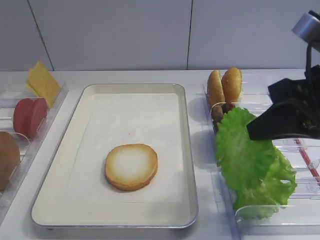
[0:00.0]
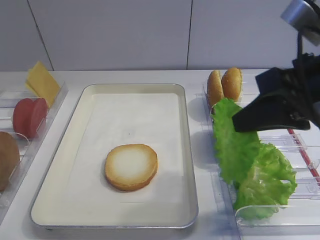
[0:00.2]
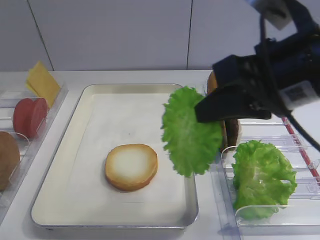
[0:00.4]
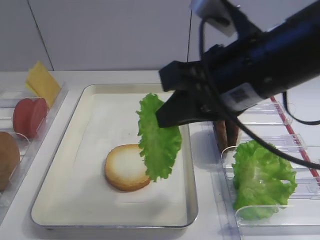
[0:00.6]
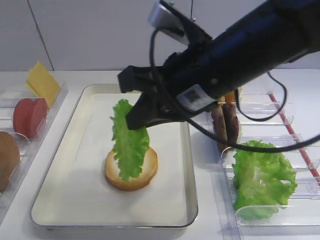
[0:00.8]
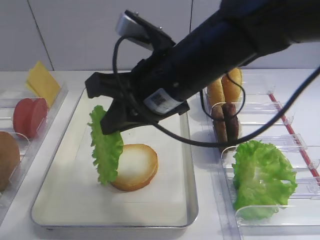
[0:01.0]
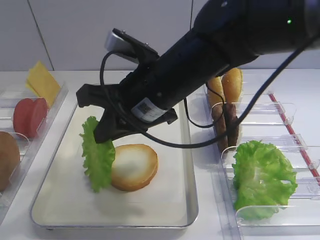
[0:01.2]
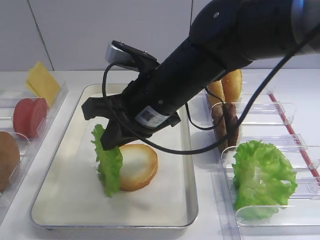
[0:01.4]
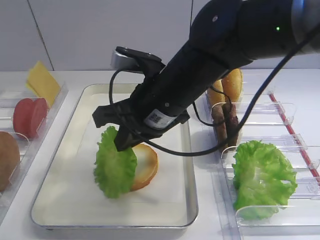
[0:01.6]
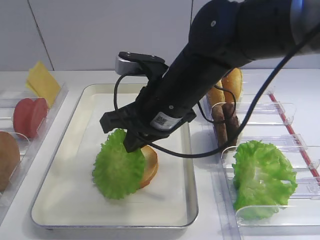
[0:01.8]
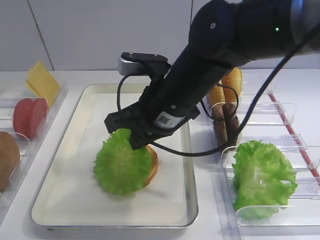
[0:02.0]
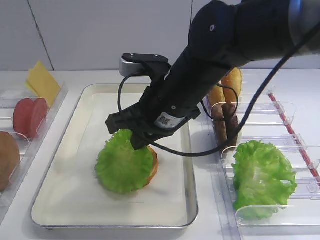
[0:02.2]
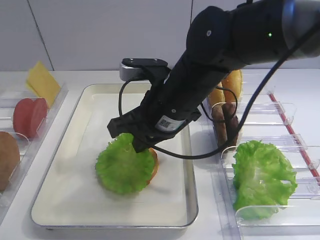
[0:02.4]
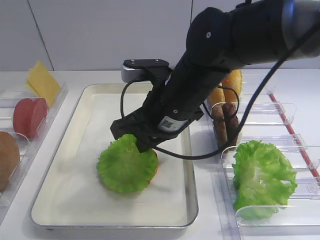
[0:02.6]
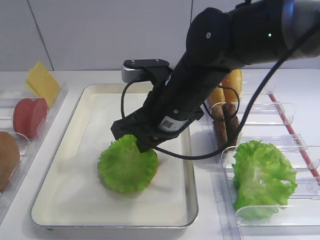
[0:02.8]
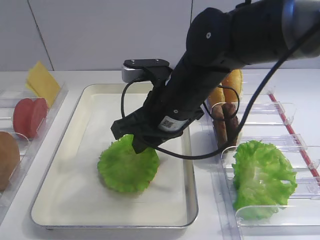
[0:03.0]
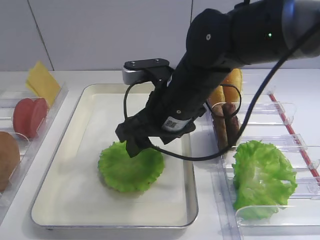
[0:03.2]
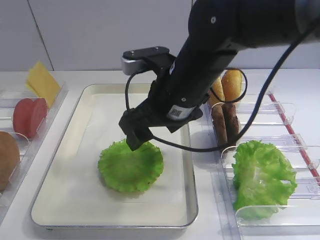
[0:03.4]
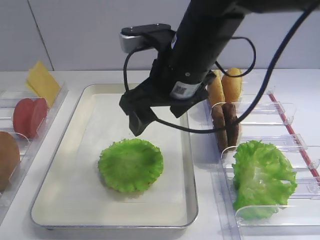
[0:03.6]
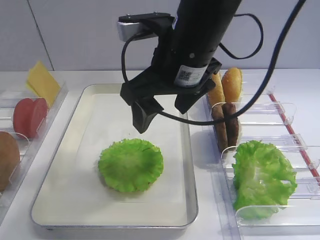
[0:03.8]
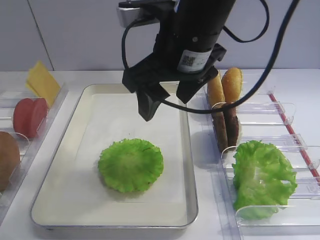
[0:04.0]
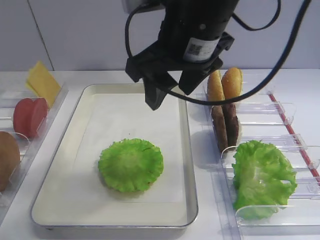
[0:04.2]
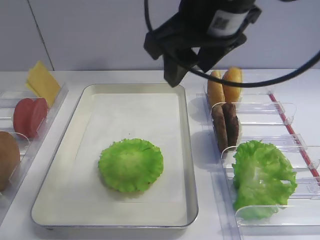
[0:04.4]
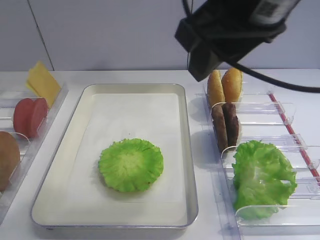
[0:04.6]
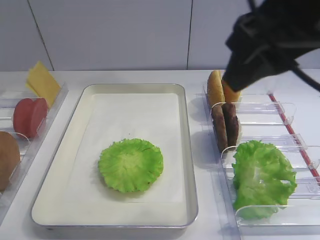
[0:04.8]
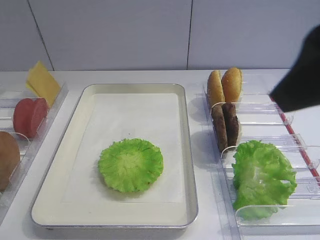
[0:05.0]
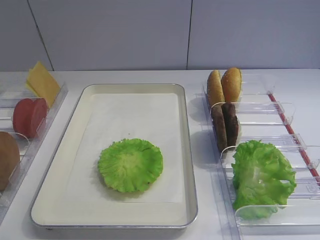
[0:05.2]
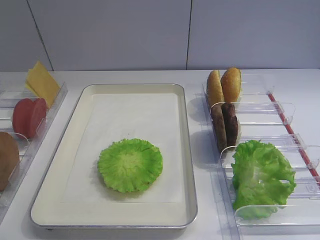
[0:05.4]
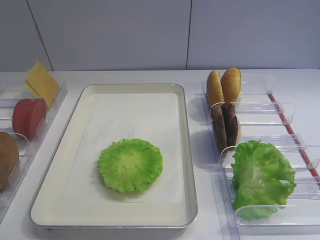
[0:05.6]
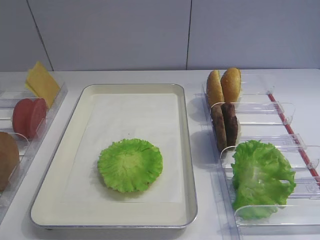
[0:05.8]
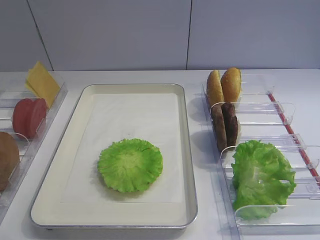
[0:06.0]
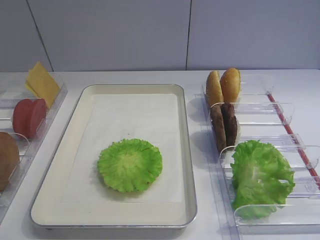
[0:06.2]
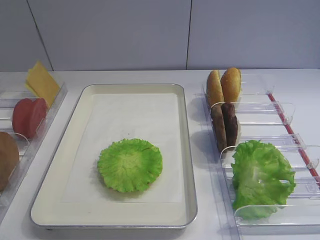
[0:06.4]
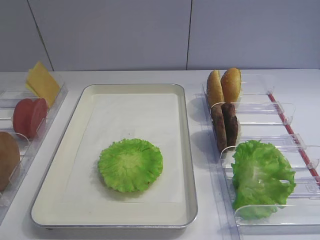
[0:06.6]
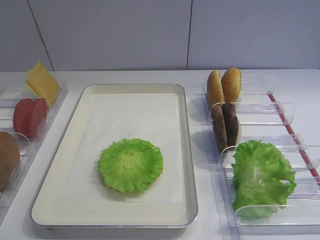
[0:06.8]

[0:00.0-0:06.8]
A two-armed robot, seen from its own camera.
Step, 0.0 to 3.4 s: Place the lettuce leaf on the bread slice with the right gripper.
0.0 to 1.4 s: The right gripper is displaced to the left by approximately 20 cm.
1.4 to 2.8 s: The grippers move only a little.
2.8 to 4.0 s: The right gripper is displaced upward by about 10 cm, and opens its fingers.
4.0 to 5.4 s: The right gripper goes about 30 cm backward and to the right.

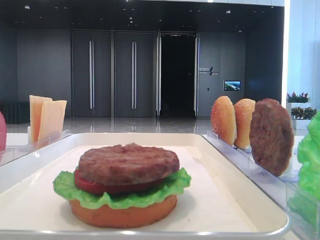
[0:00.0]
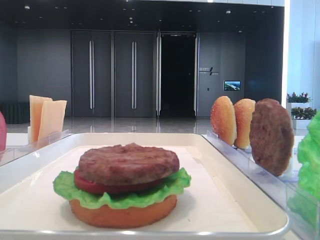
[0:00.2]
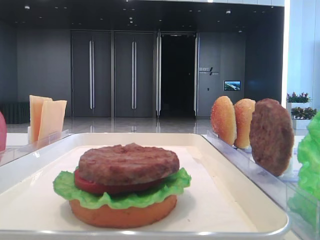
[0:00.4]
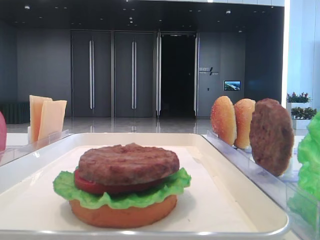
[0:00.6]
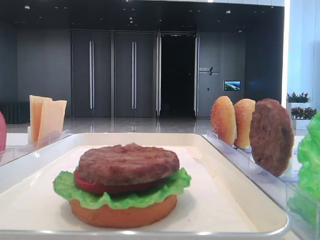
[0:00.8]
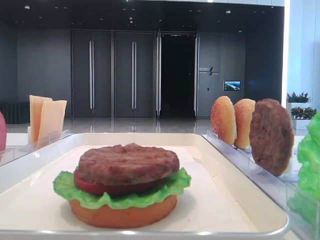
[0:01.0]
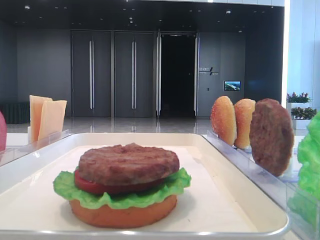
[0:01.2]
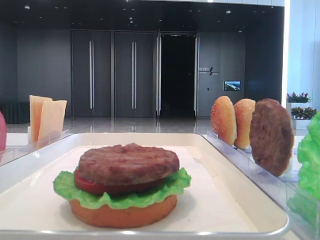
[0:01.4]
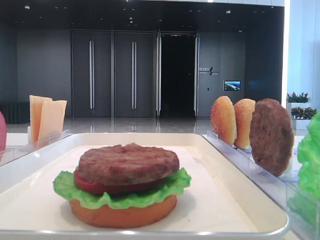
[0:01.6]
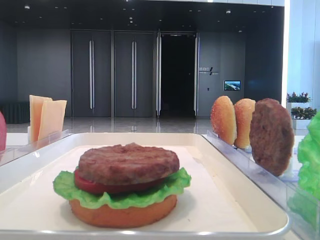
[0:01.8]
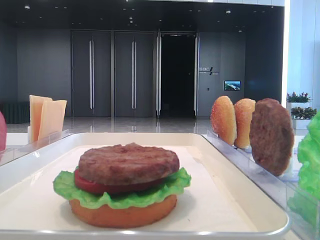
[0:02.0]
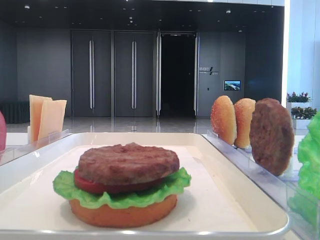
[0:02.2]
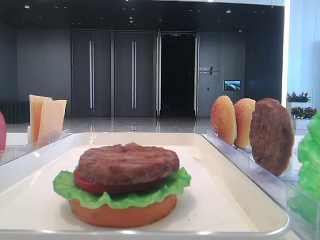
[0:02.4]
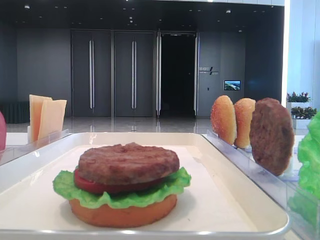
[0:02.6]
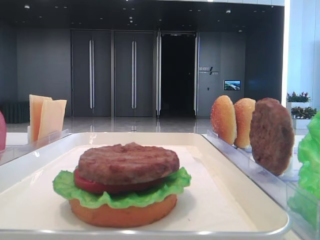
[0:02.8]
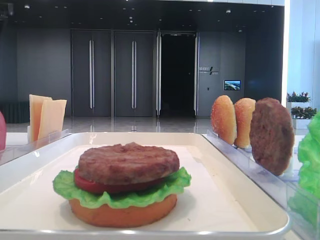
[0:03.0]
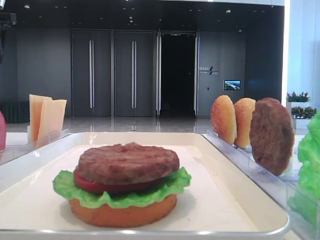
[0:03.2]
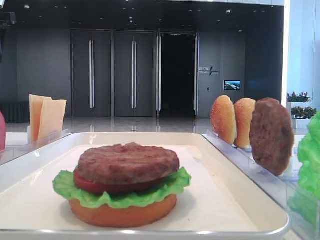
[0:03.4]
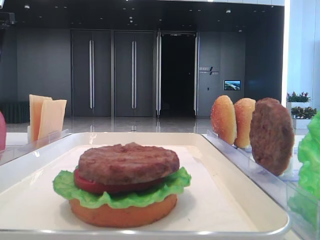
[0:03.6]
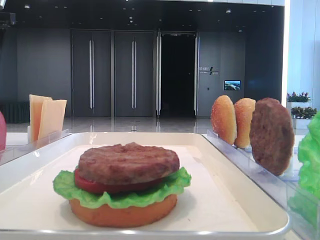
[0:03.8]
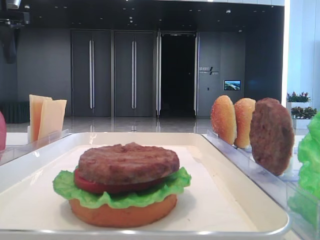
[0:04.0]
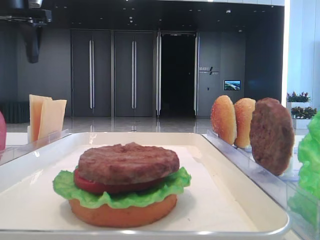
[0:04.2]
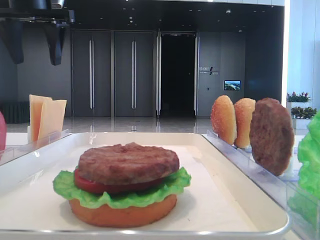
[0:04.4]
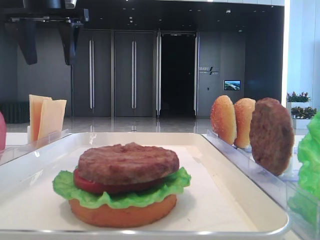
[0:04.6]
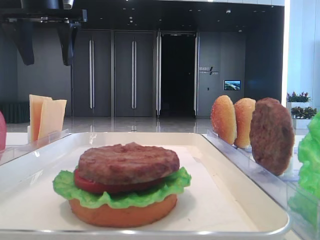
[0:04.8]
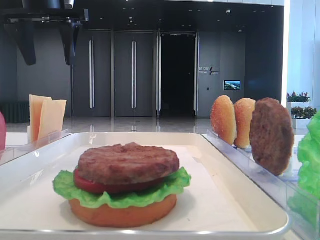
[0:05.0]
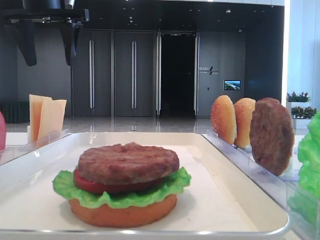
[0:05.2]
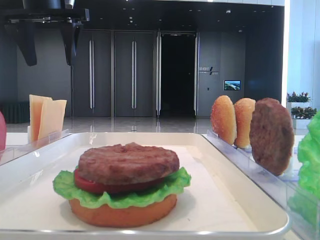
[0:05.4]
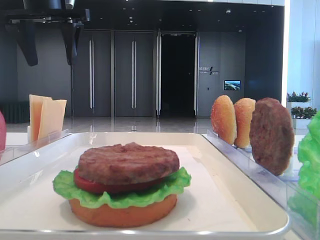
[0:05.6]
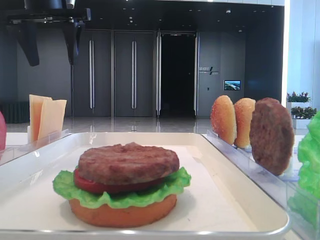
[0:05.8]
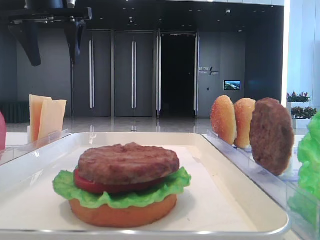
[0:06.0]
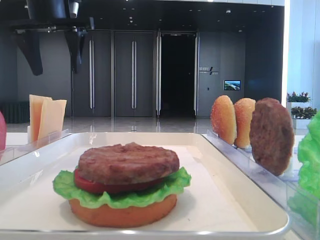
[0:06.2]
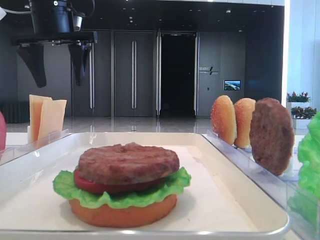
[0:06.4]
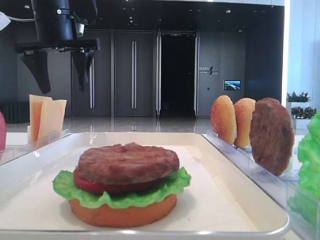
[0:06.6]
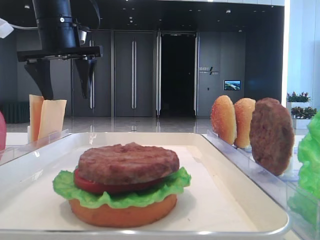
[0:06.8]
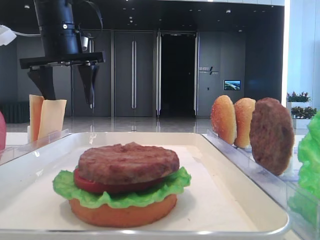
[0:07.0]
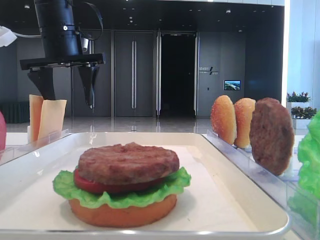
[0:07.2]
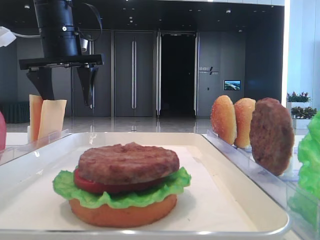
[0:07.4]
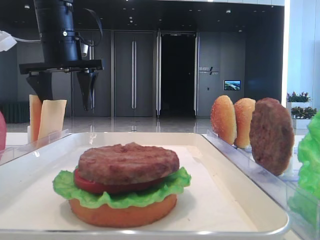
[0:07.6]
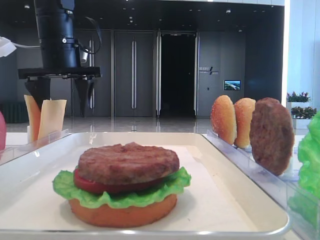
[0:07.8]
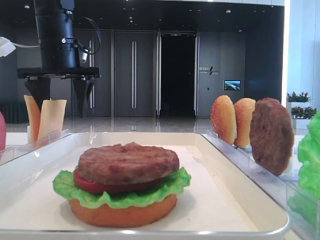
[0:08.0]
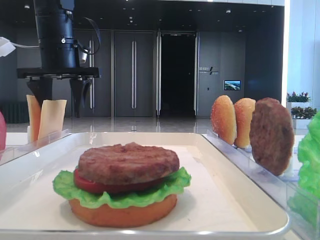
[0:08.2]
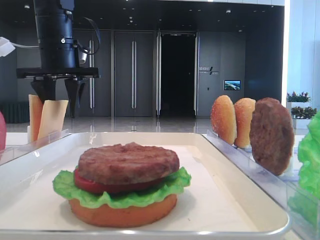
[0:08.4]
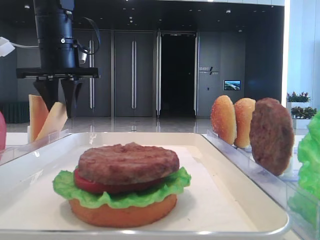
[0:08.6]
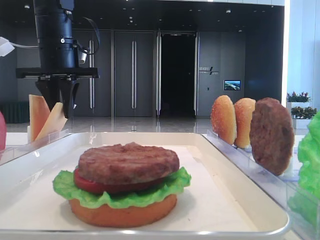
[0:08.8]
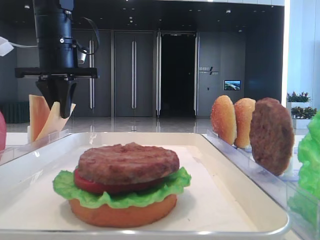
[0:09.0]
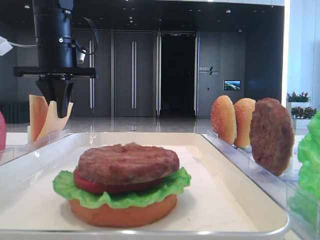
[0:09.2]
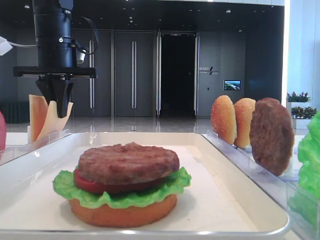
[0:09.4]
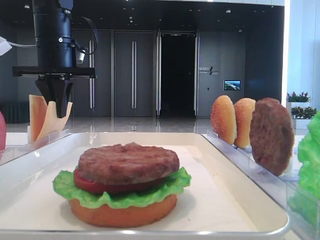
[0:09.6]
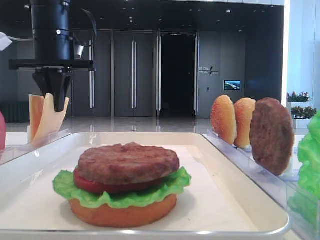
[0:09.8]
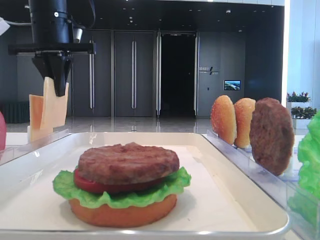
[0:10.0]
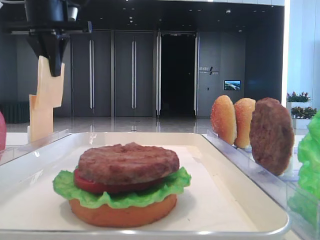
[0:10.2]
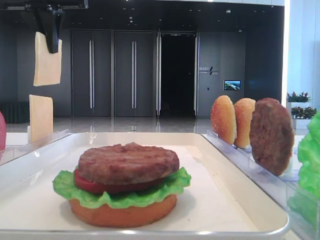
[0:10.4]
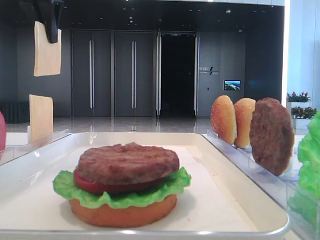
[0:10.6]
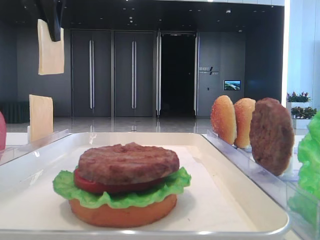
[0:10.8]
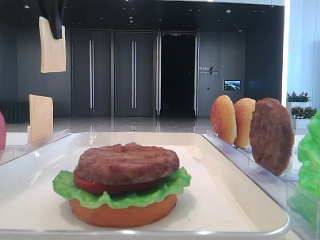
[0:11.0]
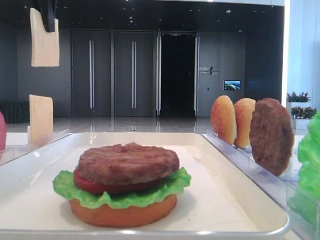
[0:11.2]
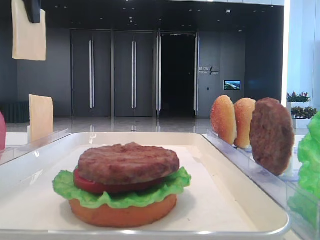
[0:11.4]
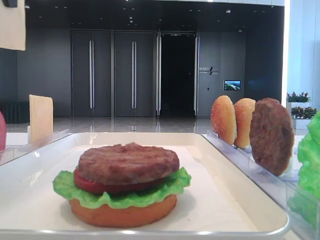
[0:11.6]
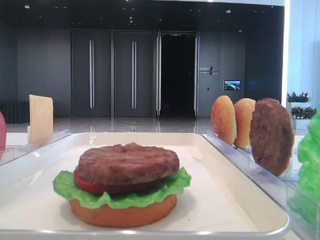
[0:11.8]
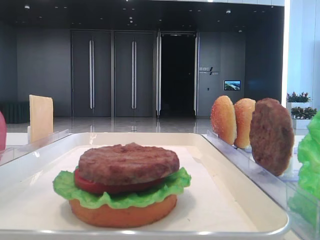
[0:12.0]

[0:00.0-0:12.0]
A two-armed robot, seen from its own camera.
Step, 0.0 to 9.0 s: Pick up the cheese slice with the left hand.
1.6 to 3.0 s: The left gripper shifts roughly 35 cm forward.
3.0 to 4.4 s: The left gripper is displaced to the right by about 10 cm.
4.4 to 6.0 s: The grippers make only small movements.
6.0 to 7.6 s: The left gripper travels downward by some 10 cm.
7.6 to 9.0 s: The left gripper closes.
9.0 to 10.4 s: The left gripper goes some 10 cm upward.
10.4 to 12.0 s: The left gripper heads backward, covering some 15 cm.

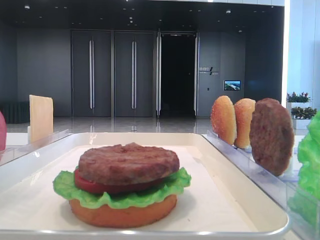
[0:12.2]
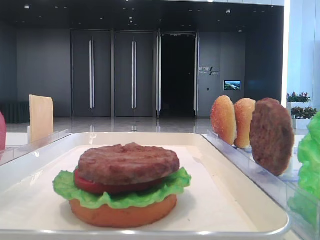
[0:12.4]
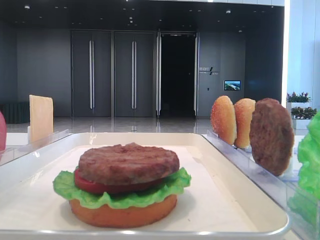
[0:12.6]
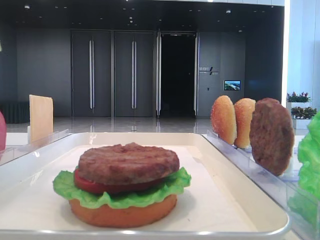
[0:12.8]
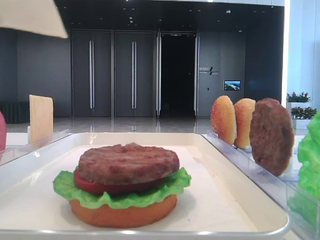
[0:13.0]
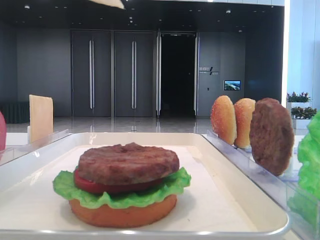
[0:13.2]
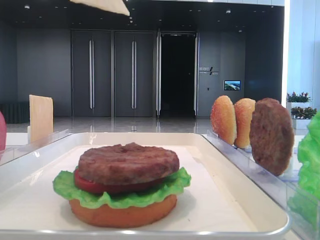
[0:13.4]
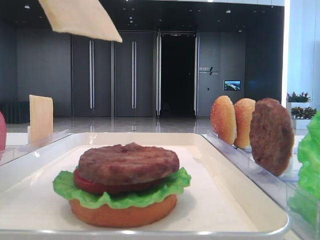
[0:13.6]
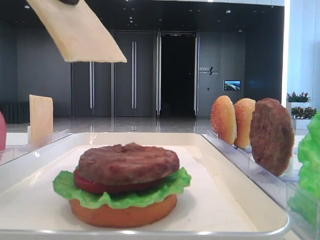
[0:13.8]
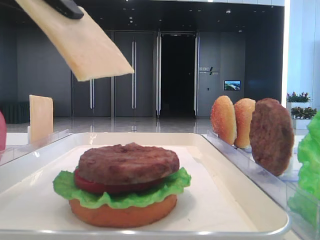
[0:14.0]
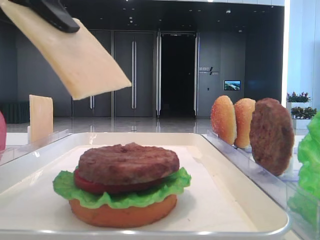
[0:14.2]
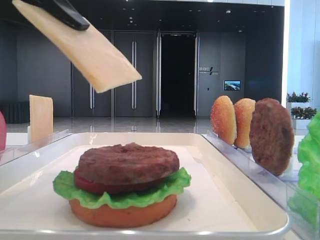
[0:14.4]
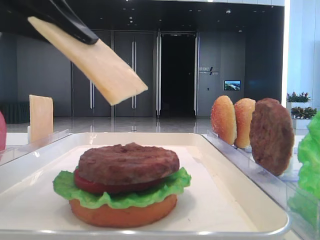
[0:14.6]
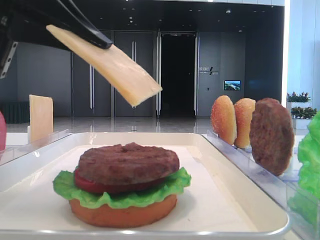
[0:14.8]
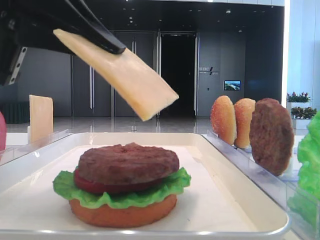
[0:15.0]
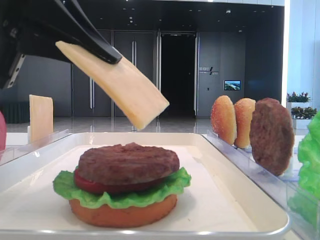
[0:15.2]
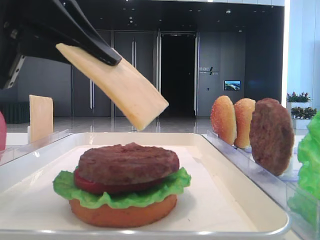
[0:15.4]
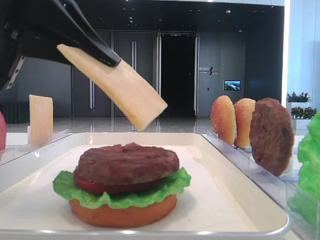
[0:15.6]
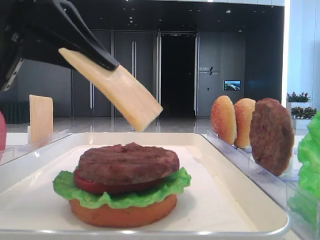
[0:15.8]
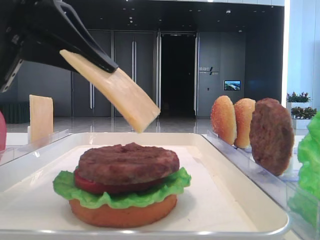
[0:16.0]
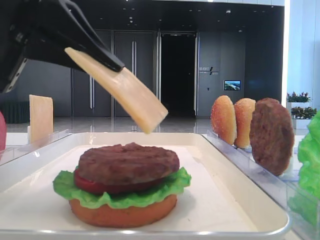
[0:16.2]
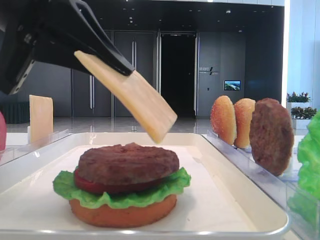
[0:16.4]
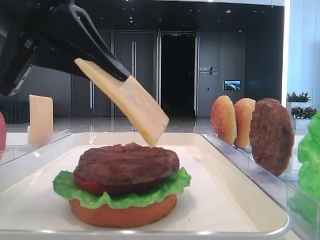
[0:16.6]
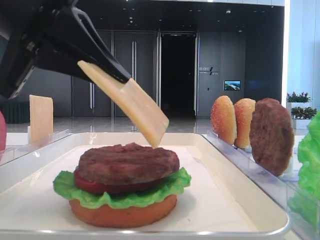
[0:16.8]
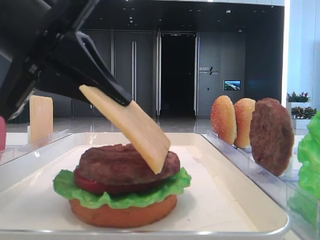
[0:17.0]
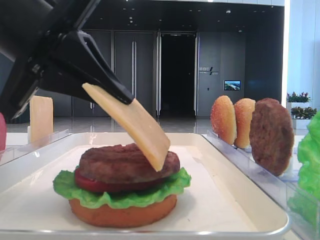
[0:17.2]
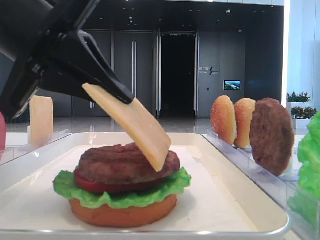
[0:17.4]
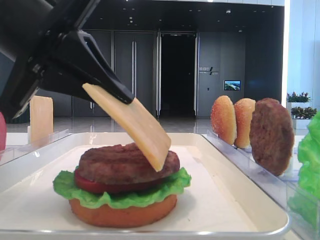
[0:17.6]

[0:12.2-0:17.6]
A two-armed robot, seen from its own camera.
12.2 to 13.6 s: The left gripper shifts roughly 10 cm to the right and downward.
13.6 to 15.0 s: The left gripper is displaced downward by about 10 cm.
15.0 to 17.6 s: The grippers make only small movements.
